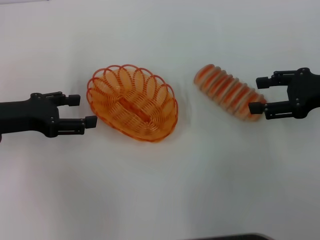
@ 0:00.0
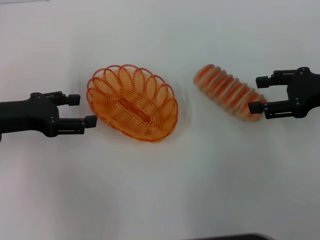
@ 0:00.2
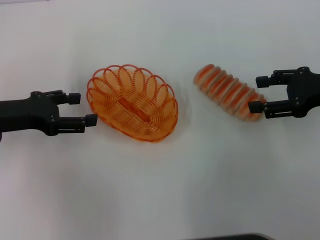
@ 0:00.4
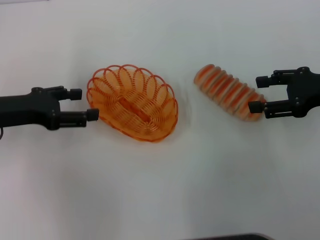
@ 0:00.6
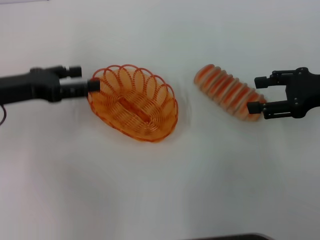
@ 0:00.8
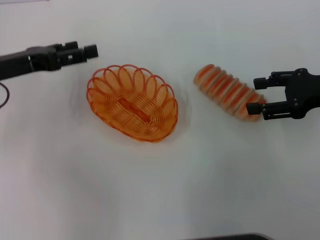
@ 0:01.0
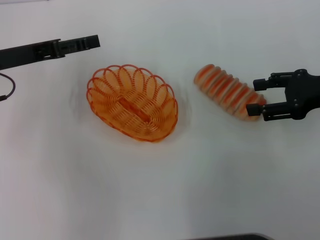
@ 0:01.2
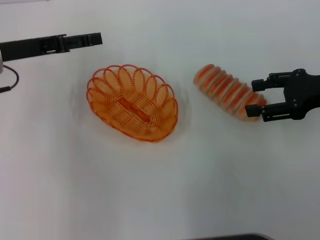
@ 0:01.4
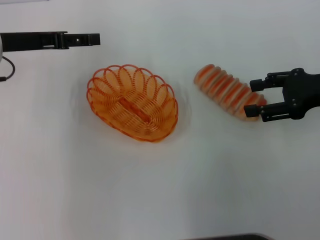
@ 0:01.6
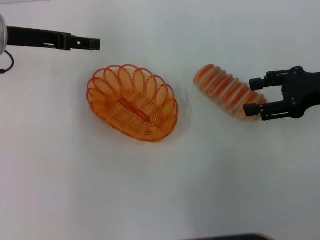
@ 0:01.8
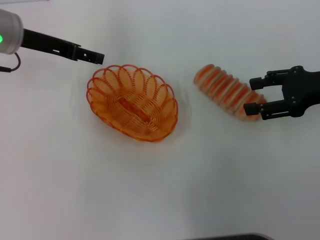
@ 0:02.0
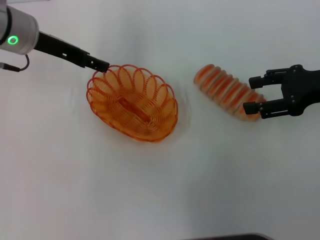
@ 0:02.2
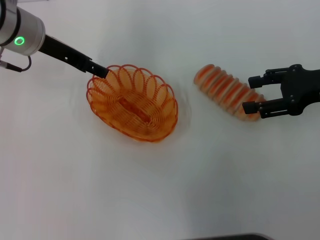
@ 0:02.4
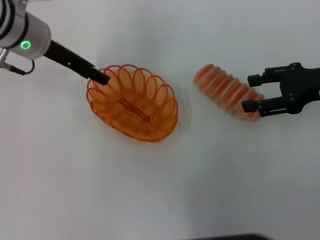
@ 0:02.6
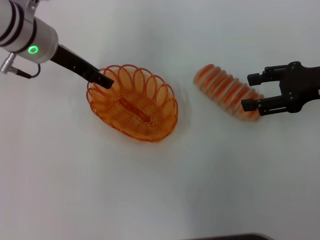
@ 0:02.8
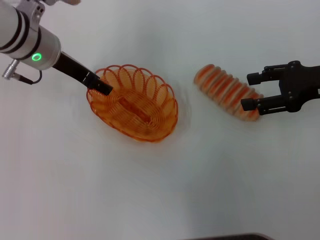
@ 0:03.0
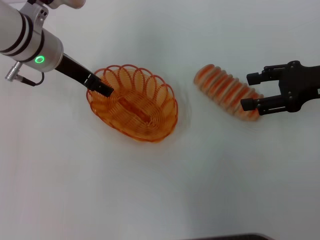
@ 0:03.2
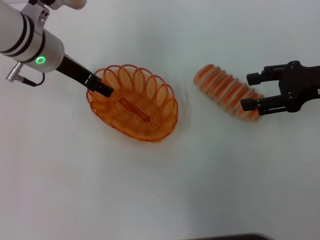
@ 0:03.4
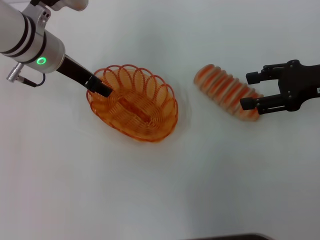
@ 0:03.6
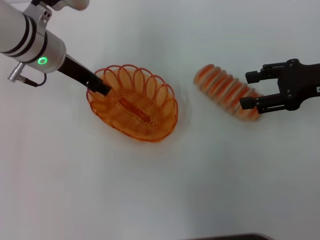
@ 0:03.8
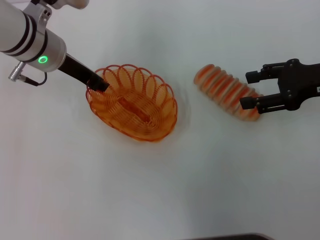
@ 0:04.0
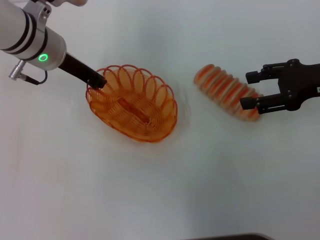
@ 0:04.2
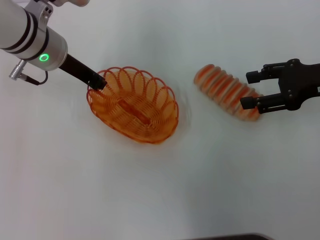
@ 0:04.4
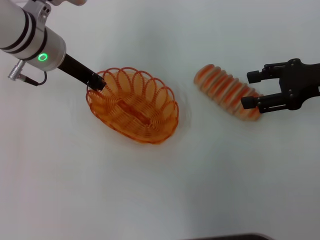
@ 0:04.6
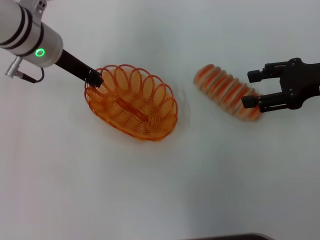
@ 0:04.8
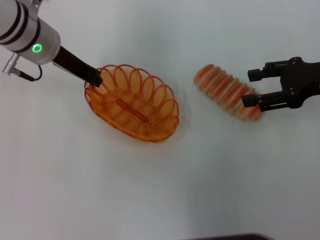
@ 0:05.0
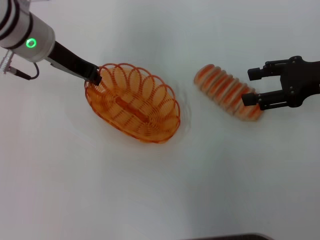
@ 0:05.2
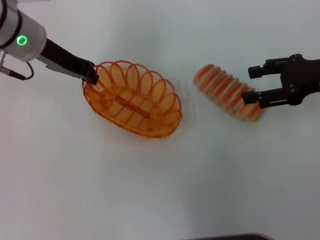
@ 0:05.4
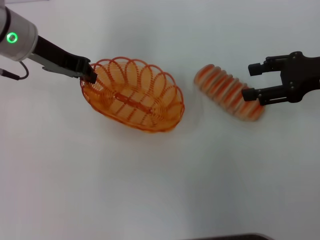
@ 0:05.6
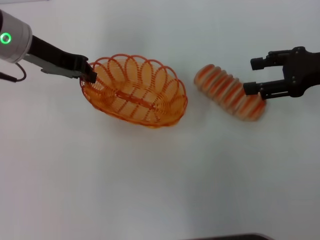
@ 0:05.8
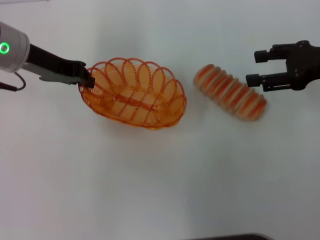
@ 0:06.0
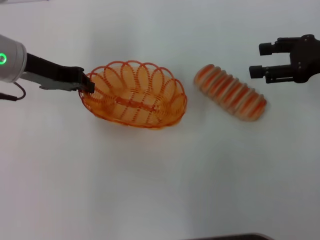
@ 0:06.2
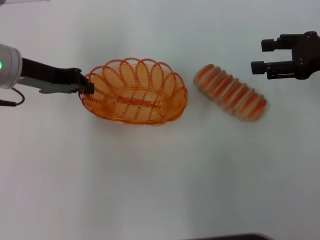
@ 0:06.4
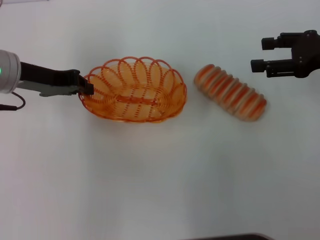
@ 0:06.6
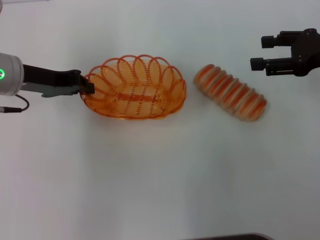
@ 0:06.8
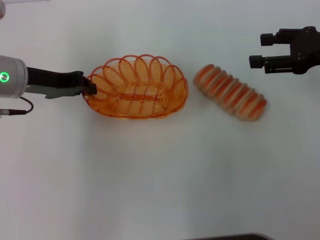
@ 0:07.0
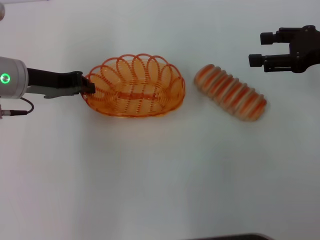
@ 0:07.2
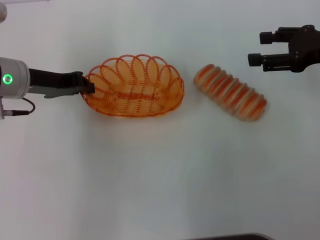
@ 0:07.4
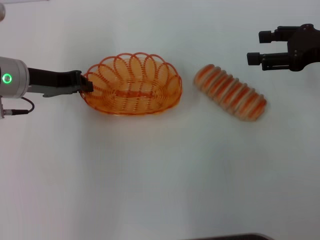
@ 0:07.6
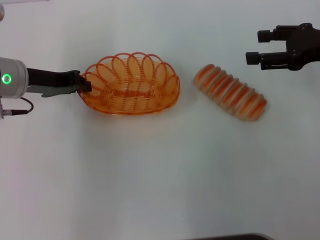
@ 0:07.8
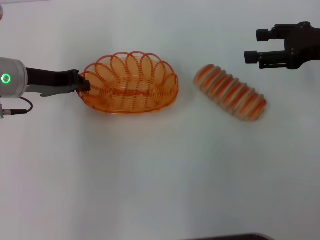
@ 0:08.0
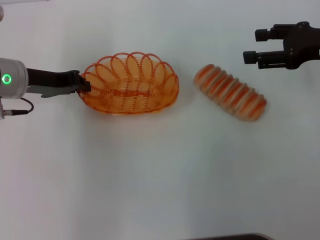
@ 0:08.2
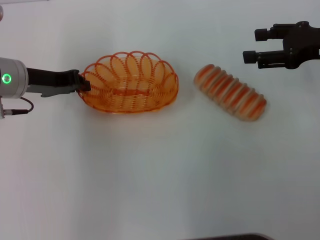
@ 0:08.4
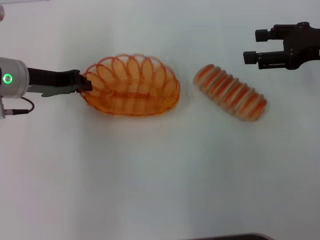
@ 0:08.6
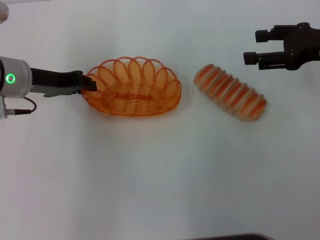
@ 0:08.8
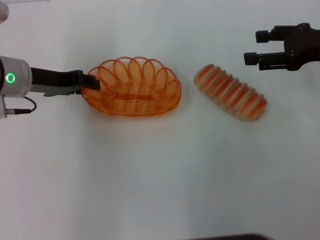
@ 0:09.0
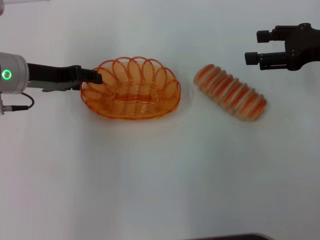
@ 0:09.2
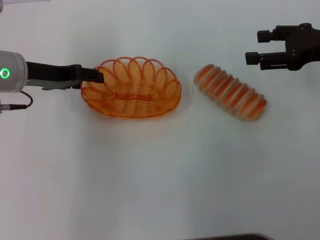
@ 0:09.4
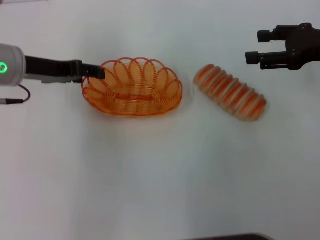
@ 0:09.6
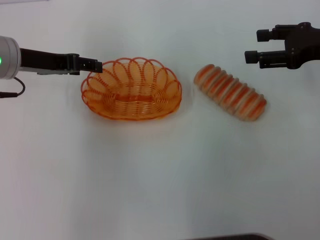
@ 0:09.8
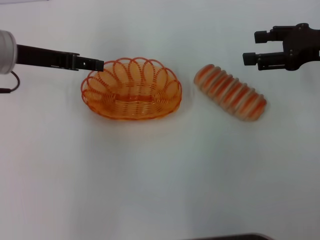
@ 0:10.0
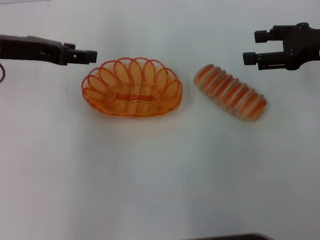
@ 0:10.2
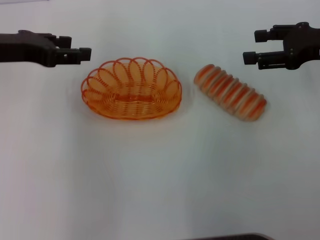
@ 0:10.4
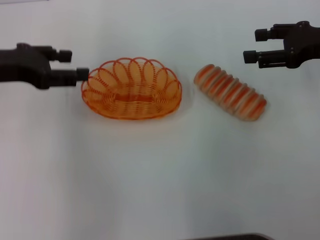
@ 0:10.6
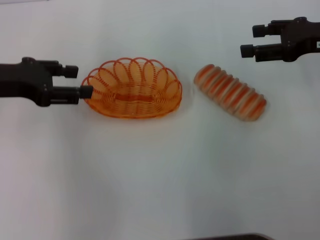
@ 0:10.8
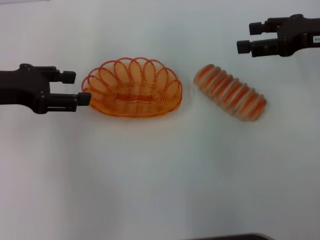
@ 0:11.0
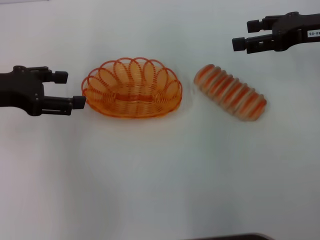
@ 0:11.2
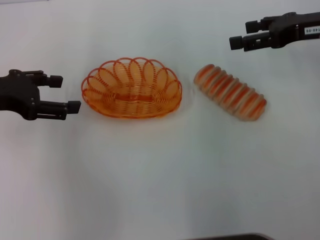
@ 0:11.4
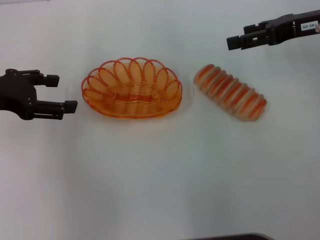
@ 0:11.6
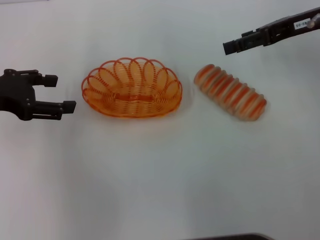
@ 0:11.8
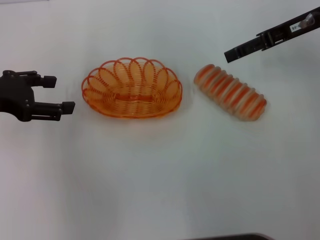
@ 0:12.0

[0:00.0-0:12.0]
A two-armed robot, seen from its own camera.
Step, 0:00.0 to 0:05.6: Pick up the basket with the left gripper.
Step, 0:05.8 to 0:10.4: Place the basket in the center of view with the left gripper.
0:00.0 to 0:01.6: The left gripper travels forward by some 10 cm.
0:01.6 to 0:03.0: The left gripper travels to the right by some 10 cm.
0:03.0 to 0:04.4: The left gripper closes its fingers.
0:04.4 to 0:06.0: The left gripper changes place by approximately 5 cm.
0:06.0 to 0:07.6: The left gripper is displaced downward by some 5 cm.
0:07.6 to 0:09.0: The two grippers keep their place.
0:09.0 to 0:10.4: The left gripper travels upward by approximately 5 cm, and opens its fingers.
0:10.4 to 0:12.0: The left gripper changes place by roughly 5 cm. Meanwhile the right gripper shifts about 5 cm forward and to the left.

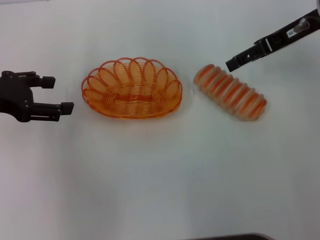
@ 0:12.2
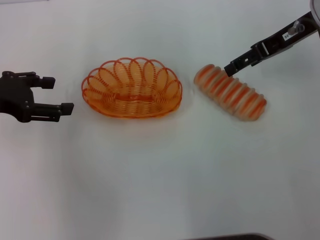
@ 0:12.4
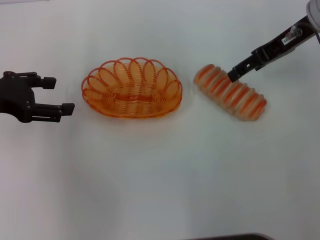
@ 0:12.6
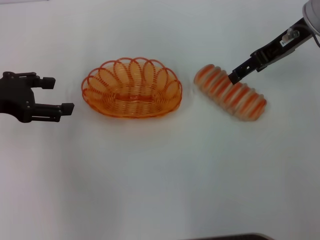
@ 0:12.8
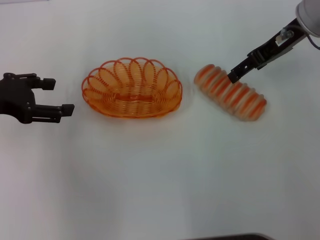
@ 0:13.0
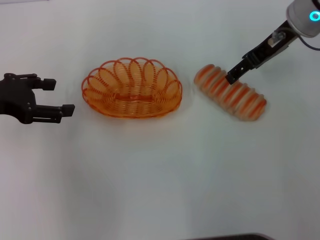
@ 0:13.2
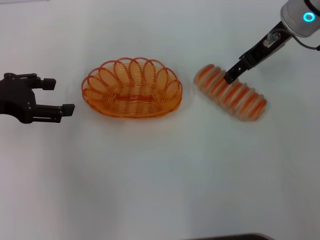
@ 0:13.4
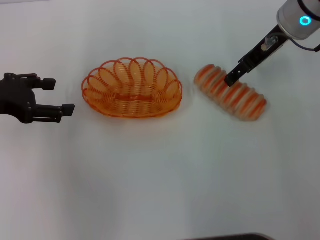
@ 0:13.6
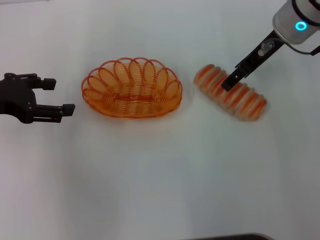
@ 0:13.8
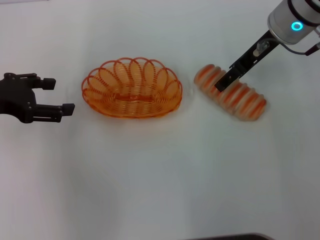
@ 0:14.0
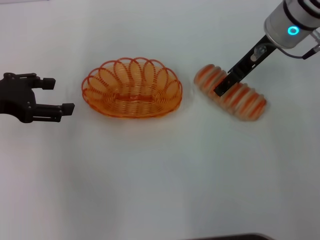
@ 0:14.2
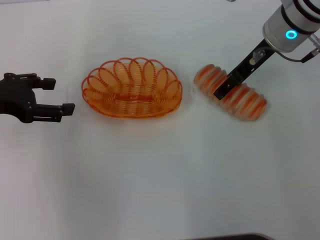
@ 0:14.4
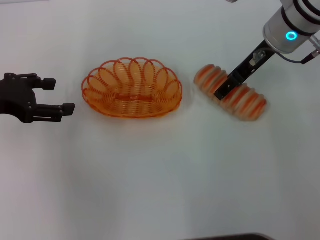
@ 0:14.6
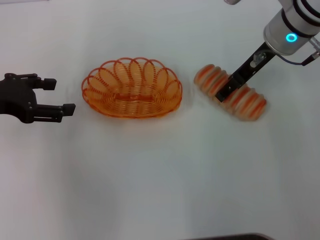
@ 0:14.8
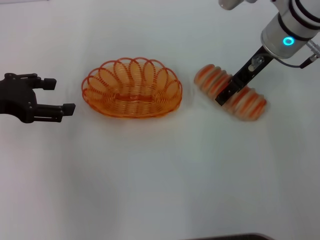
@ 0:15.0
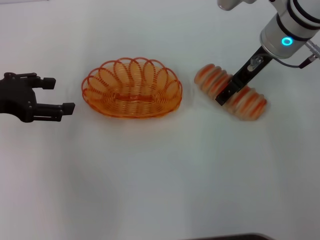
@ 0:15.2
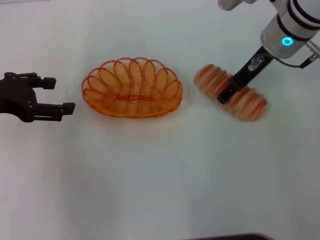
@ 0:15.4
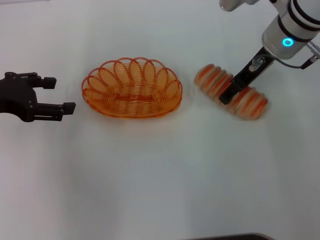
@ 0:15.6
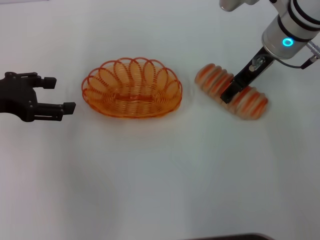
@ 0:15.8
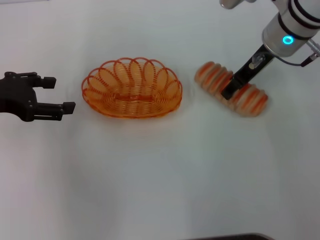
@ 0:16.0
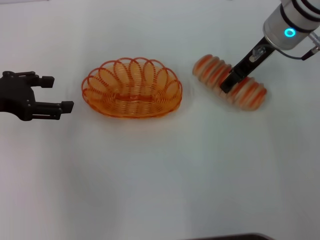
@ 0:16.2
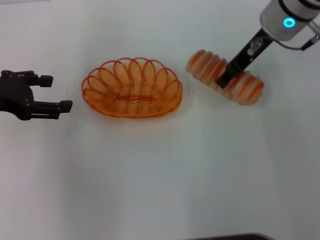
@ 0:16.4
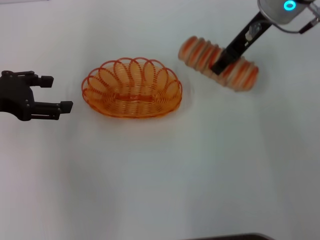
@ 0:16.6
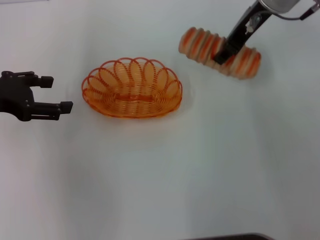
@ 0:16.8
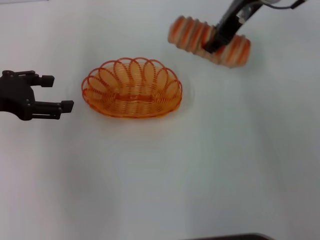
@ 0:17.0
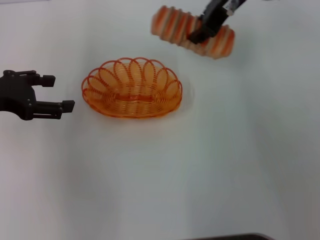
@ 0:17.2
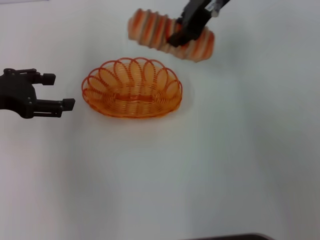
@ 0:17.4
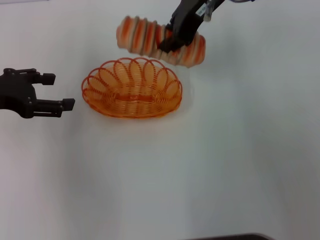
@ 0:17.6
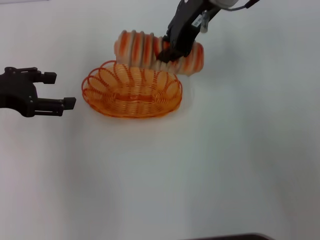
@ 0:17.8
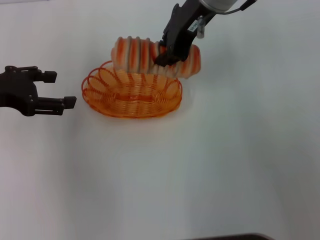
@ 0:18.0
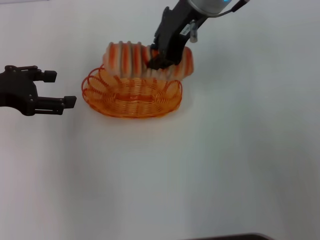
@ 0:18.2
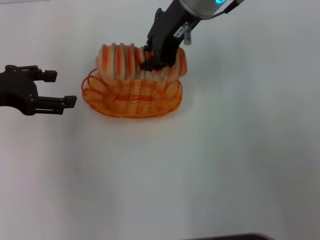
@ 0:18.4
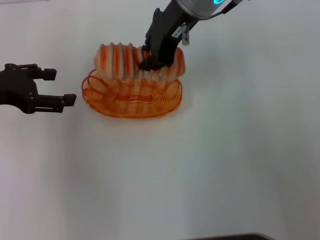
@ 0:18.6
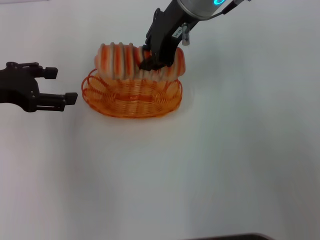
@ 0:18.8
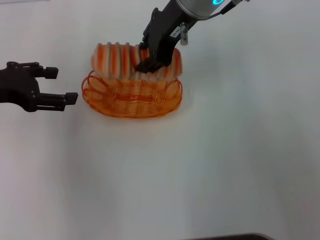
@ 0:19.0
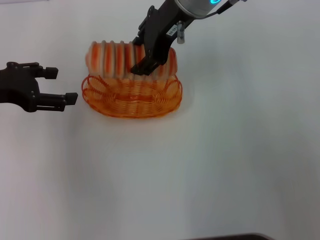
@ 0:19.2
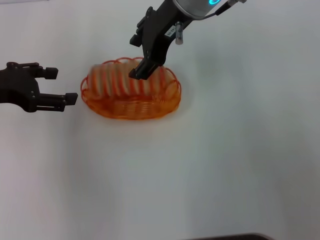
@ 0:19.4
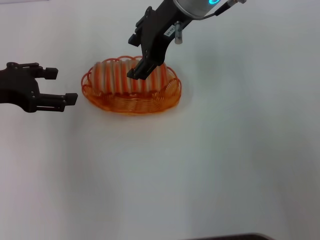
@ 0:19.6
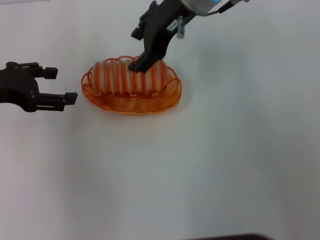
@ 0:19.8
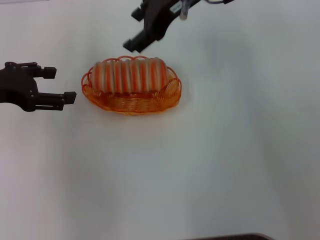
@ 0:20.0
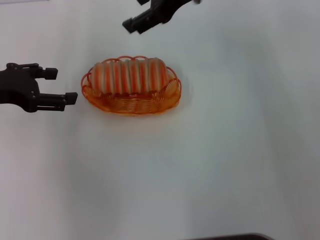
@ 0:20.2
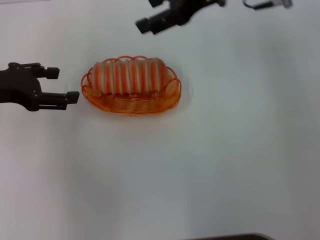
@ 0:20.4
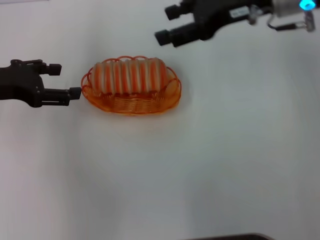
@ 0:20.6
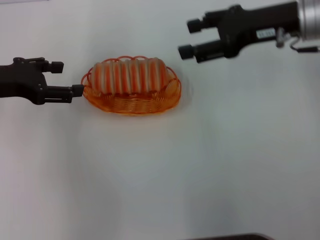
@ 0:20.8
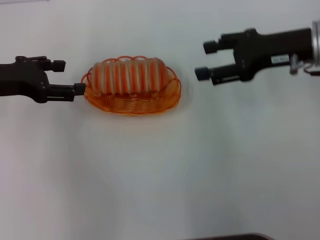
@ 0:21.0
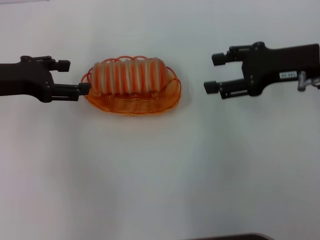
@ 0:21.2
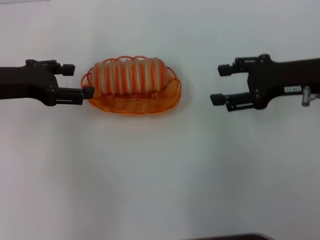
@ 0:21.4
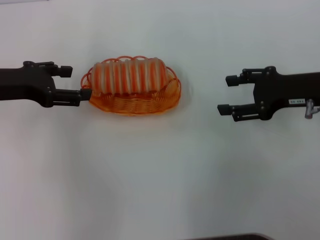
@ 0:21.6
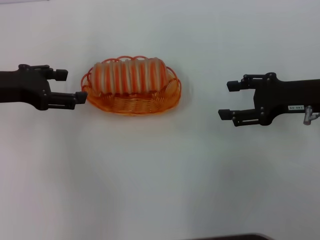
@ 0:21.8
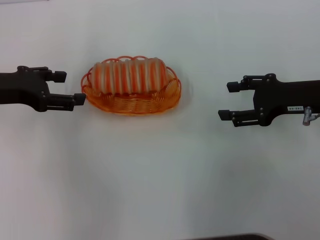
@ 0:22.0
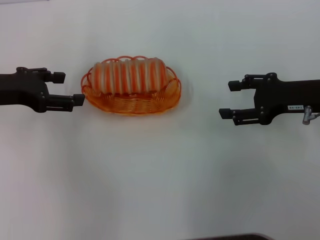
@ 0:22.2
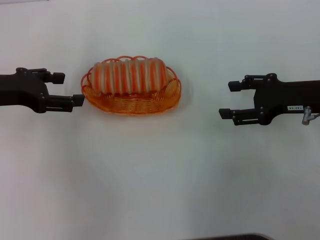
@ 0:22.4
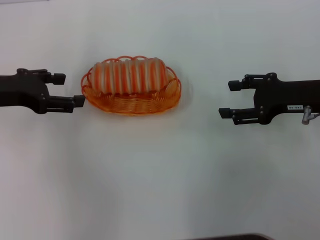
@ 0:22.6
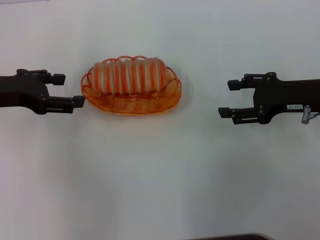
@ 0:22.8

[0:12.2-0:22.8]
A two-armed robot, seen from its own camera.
Step, 0:12.2 to 0:16.4: Pick up the long bread with the right gripper.
Step, 0:16.6 to 0:20.0: Place the long bread into the basket with the right gripper.
0:12.2 to 0:13.8: The right gripper shifts about 5 cm to the left.
0:13.8 to 0:15.2: The grippers move only a little.
0:15.2 to 0:16.8: The right gripper shifts some 5 cm upward, and closes up.
0:16.8 to 0:18.2: The right gripper travels to the left by about 10 cm, and closes.
0:18.2 to 0:19.8: The right gripper opens.
0:19.8 to 0:21.2: The right gripper travels to the right, downward and backward by some 20 cm.
0:21.2 to 0:22.8: The right gripper shifts by roughly 5 cm.
